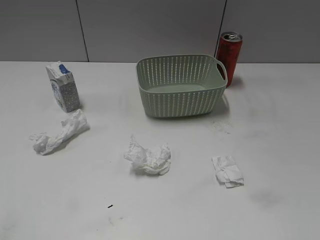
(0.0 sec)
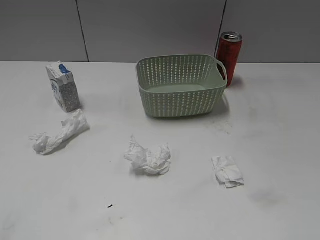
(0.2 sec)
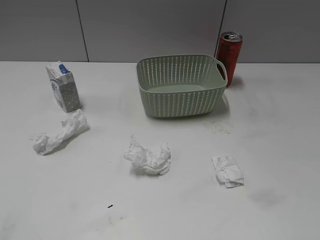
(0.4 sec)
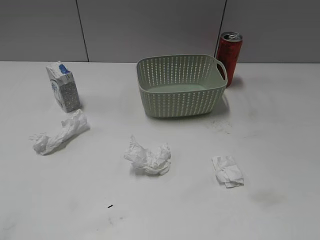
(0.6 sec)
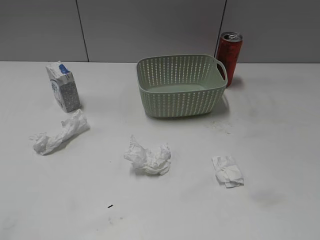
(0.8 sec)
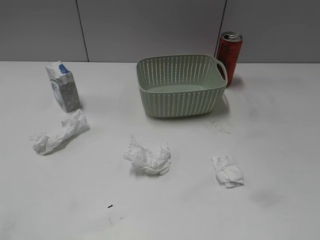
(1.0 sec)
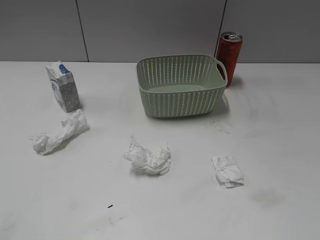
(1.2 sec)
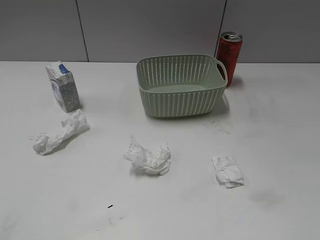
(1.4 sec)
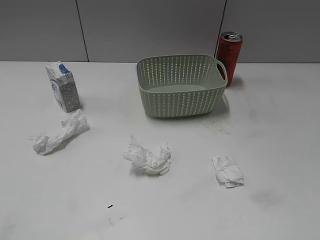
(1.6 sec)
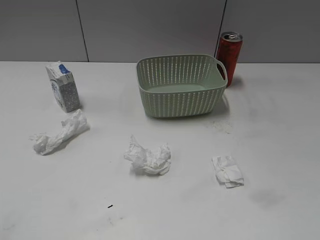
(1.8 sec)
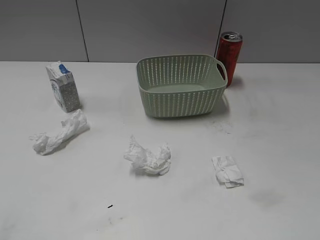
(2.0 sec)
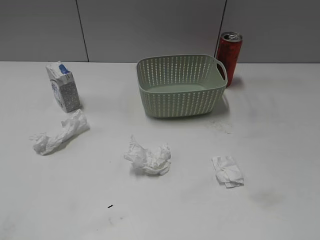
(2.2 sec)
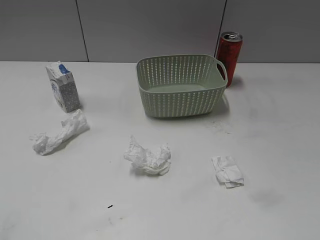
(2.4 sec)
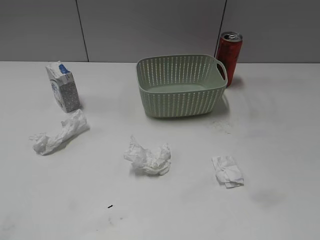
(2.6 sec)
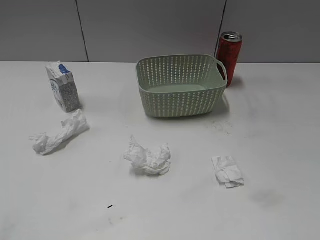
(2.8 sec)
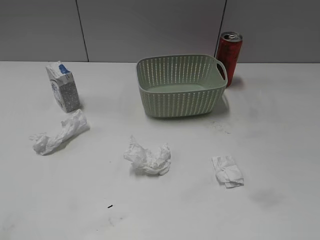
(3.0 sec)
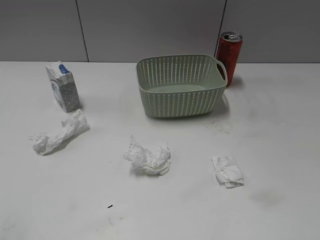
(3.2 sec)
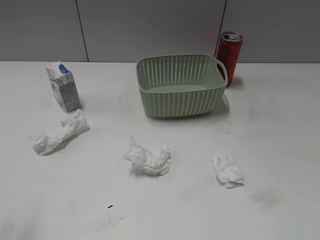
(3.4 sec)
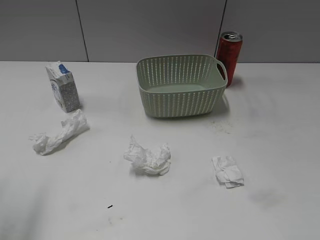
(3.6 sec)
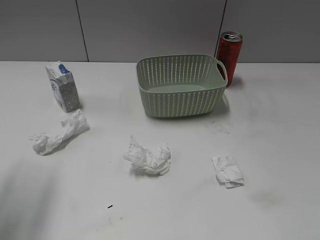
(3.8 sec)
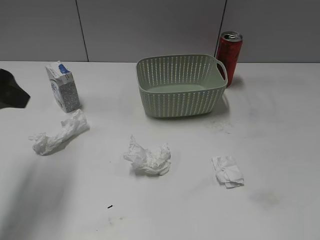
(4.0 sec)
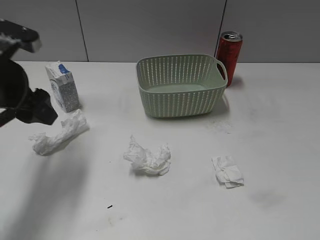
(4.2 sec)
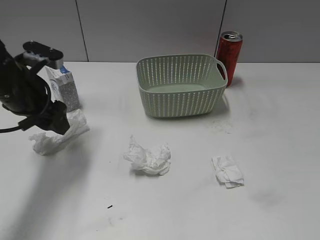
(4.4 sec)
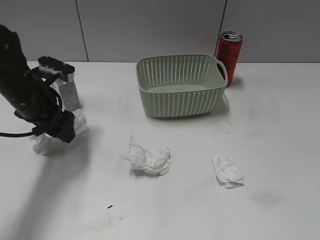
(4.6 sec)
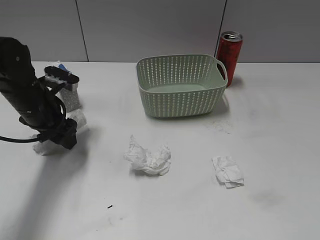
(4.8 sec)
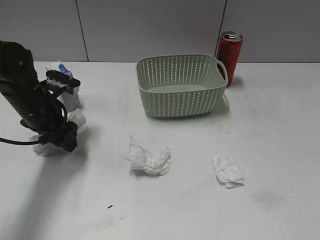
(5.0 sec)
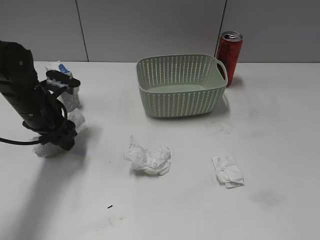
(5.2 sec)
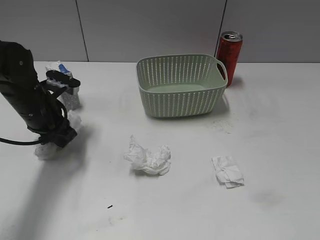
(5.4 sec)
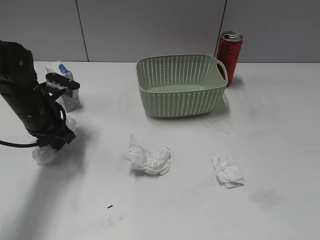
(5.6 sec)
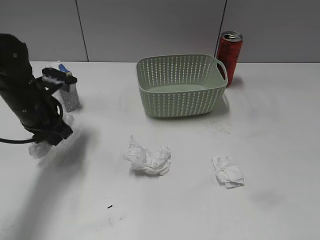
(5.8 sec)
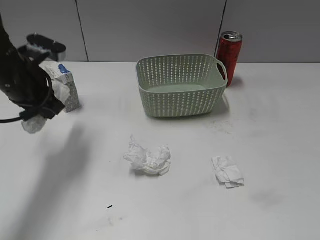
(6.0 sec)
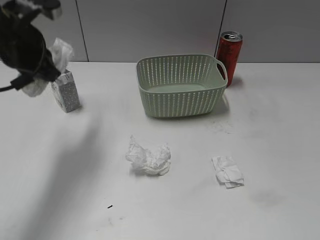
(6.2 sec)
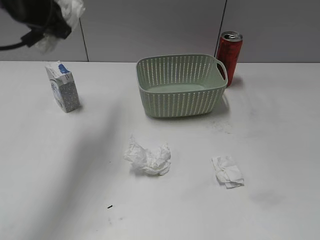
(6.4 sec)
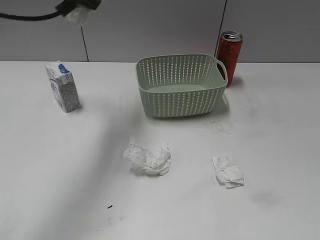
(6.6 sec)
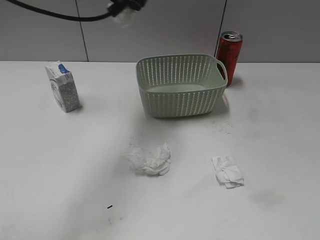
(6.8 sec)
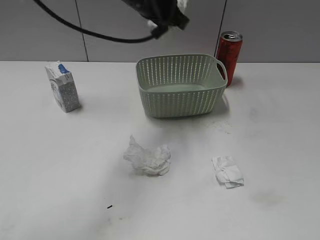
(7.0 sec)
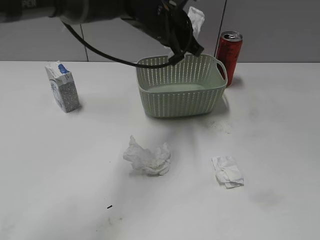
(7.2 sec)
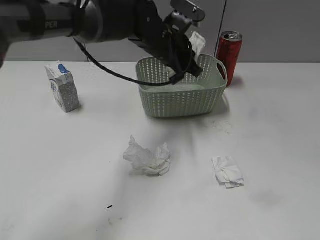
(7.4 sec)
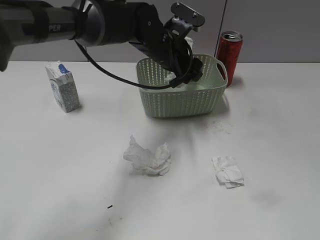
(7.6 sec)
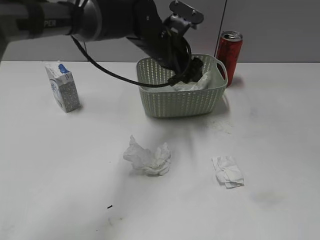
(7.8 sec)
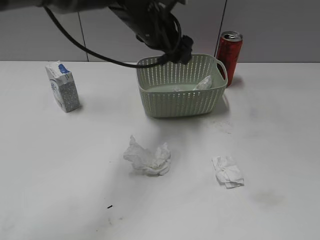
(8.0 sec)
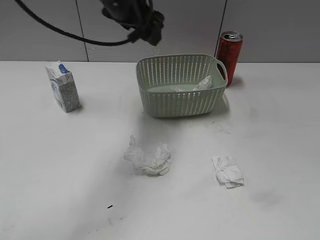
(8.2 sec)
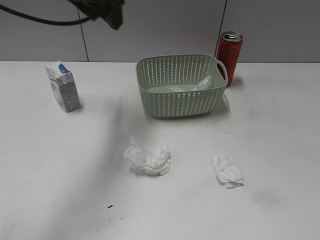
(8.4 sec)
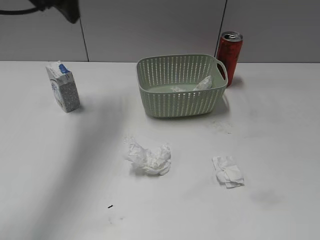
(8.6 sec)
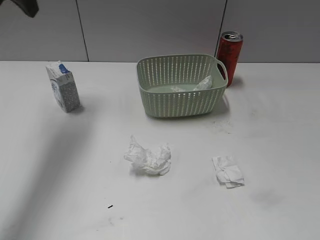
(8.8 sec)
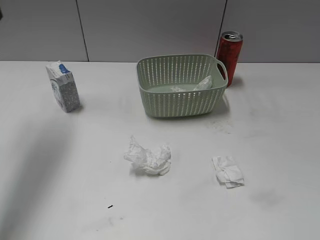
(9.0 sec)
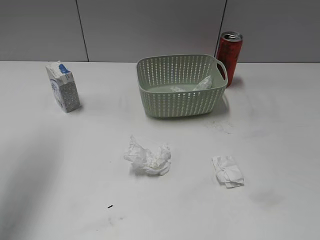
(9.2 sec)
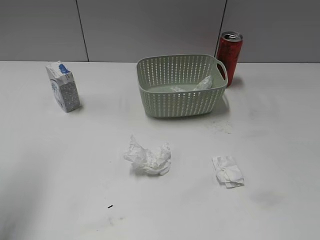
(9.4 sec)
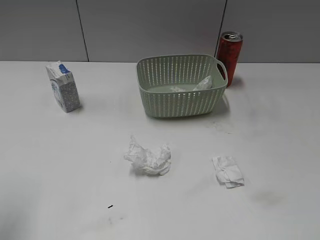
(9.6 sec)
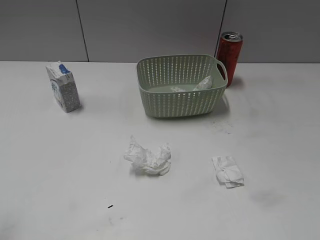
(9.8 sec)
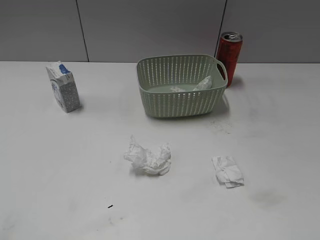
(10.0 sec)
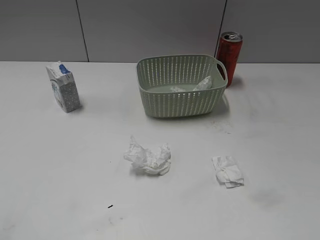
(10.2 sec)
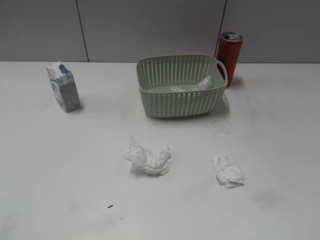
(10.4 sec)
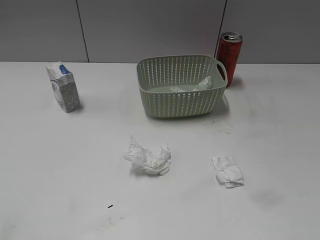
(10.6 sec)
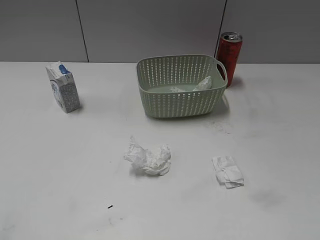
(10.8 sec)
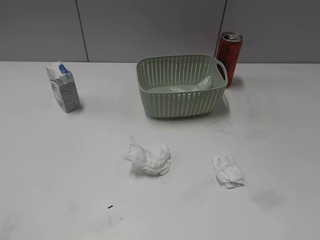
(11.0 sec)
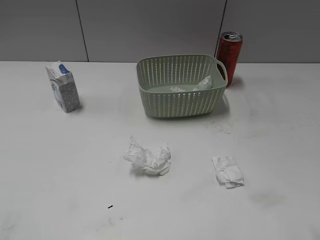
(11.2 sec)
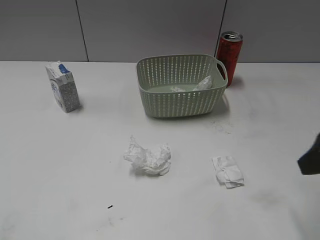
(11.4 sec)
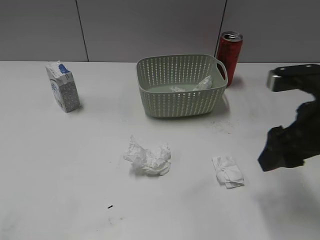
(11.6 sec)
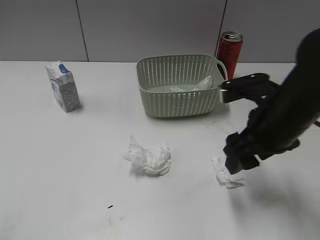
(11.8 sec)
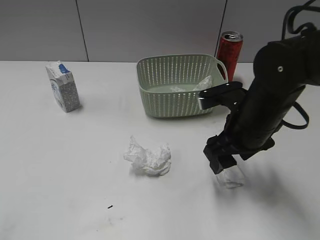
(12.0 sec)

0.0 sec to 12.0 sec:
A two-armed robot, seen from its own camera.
Step, 3.8 sec to 5.6 sec: Grasp the waste paper with left gripper.
Step, 5.8 sec to 8.0 sec: Place the waste paper in the basket with left gripper.
3.0 sec to 4.4 sec: The left gripper is displaced forward by about 30 cm.
4.4 sec to 6.0 sec: The left gripper moves some 5 cm downward and comes back, and closes up.
6.0 sec to 7.6 sec: The left gripper travels to the right by roughly 25 cm, and opens up.
7.6 sec to 9.0 sec: The left gripper is displaced to the left and upward by some 35 cm.
9.0 sec to 10.4 sec: The left gripper shifts some 35 cm backward.
10.4 sec to 12.0 sec: The right gripper heads forward, to the left and downward, covering some 35 cm.

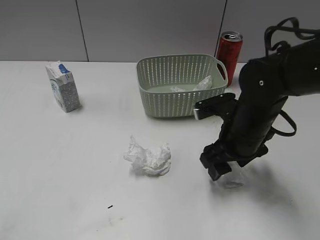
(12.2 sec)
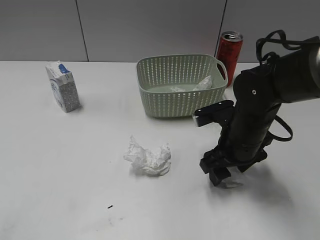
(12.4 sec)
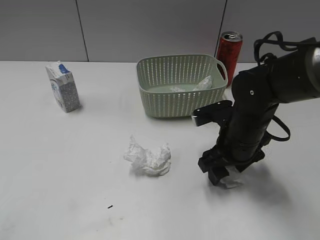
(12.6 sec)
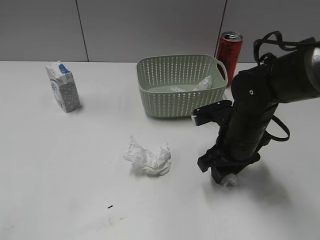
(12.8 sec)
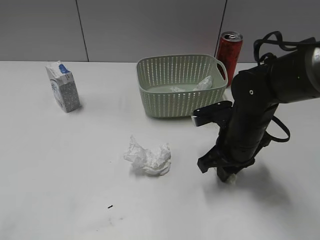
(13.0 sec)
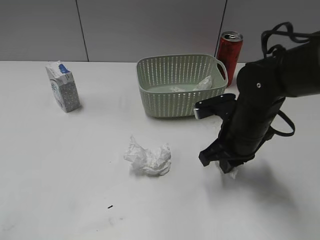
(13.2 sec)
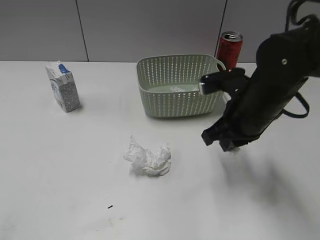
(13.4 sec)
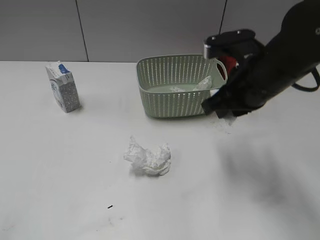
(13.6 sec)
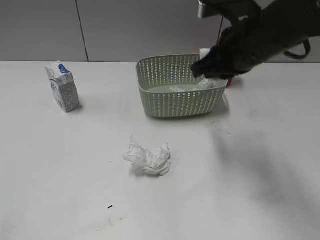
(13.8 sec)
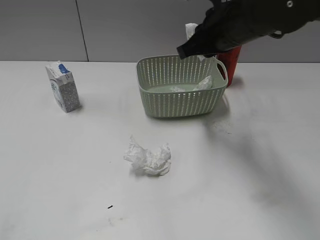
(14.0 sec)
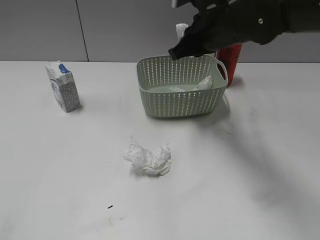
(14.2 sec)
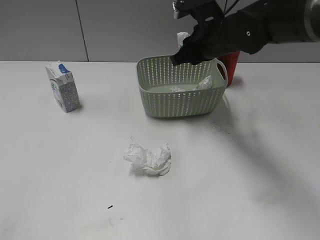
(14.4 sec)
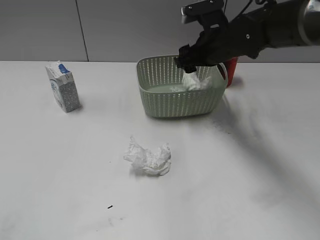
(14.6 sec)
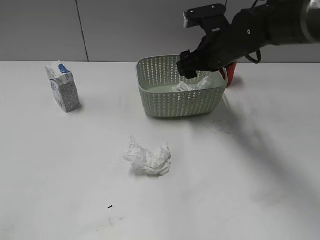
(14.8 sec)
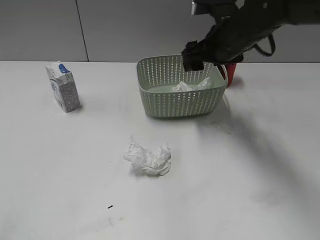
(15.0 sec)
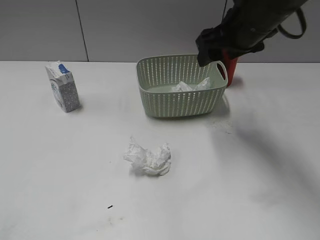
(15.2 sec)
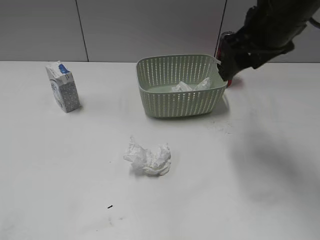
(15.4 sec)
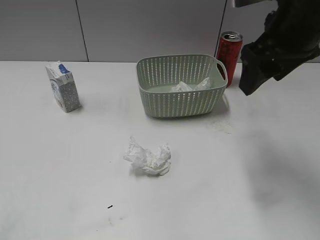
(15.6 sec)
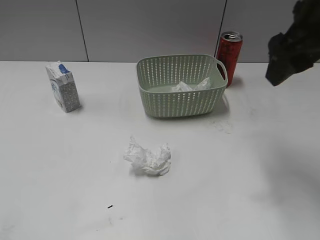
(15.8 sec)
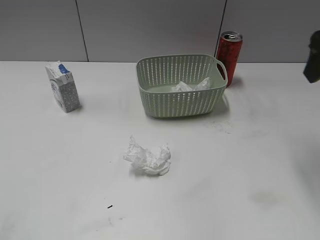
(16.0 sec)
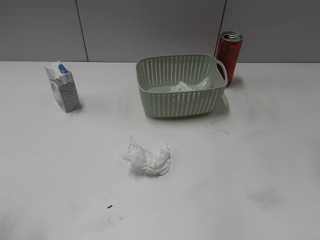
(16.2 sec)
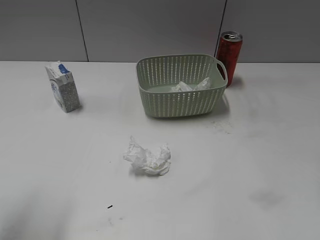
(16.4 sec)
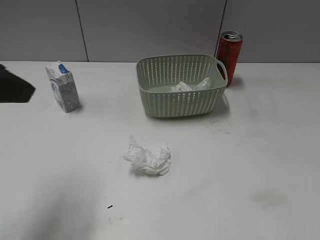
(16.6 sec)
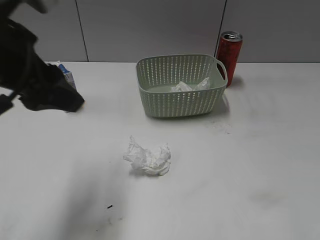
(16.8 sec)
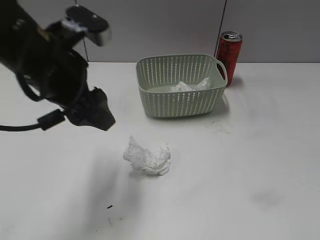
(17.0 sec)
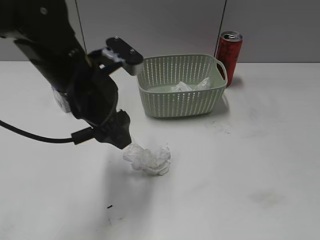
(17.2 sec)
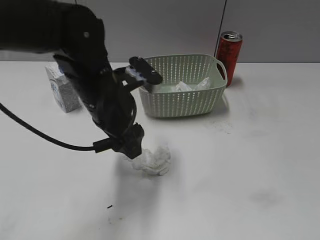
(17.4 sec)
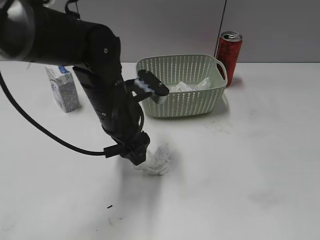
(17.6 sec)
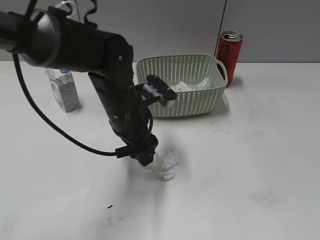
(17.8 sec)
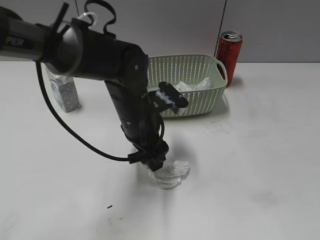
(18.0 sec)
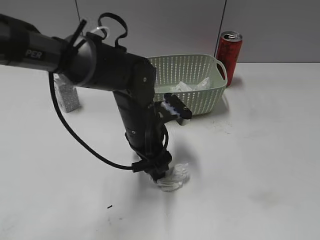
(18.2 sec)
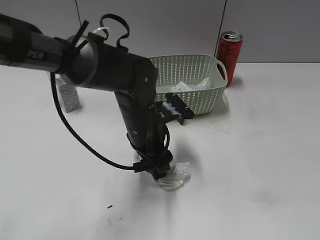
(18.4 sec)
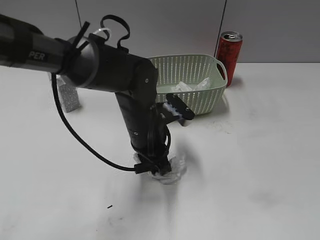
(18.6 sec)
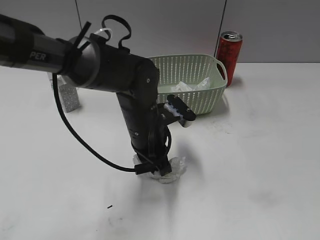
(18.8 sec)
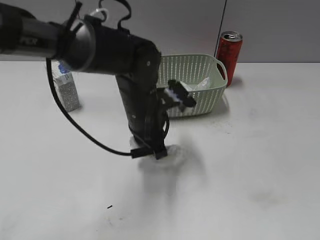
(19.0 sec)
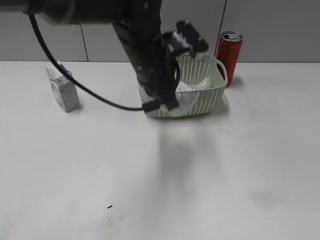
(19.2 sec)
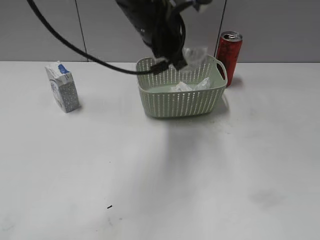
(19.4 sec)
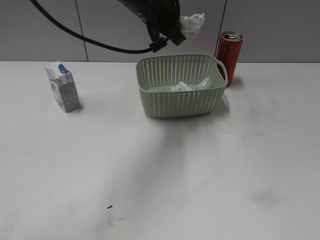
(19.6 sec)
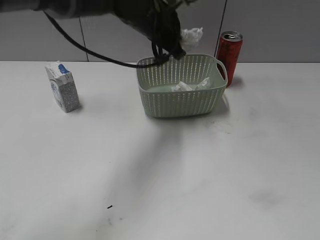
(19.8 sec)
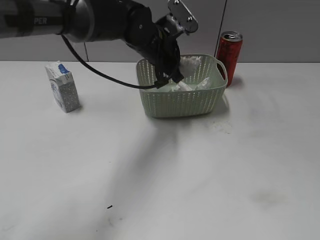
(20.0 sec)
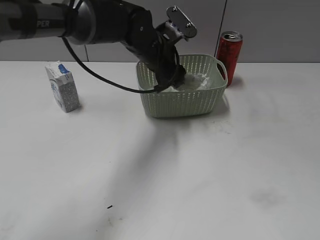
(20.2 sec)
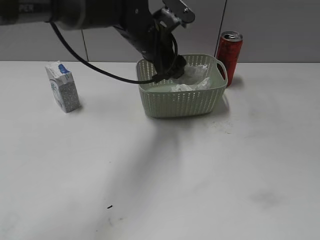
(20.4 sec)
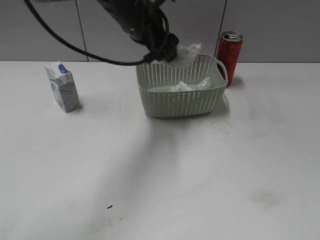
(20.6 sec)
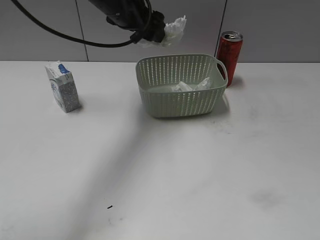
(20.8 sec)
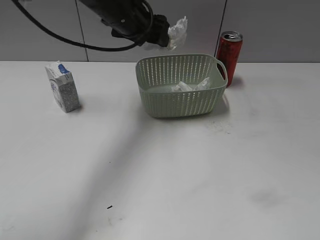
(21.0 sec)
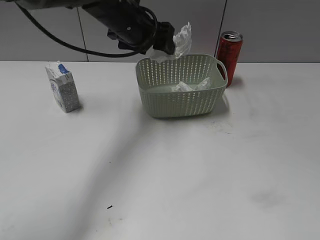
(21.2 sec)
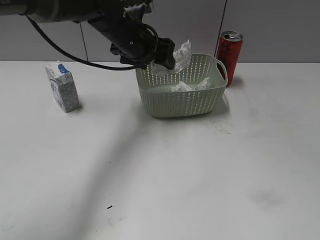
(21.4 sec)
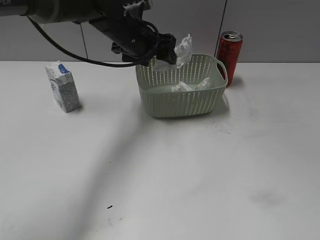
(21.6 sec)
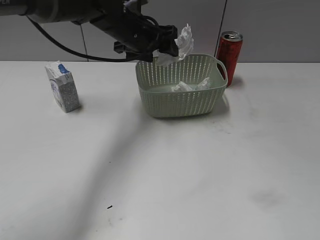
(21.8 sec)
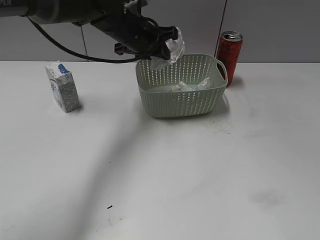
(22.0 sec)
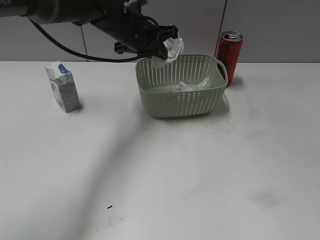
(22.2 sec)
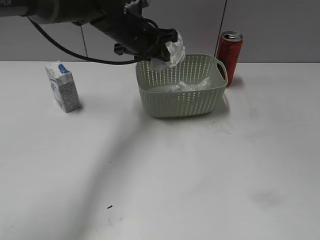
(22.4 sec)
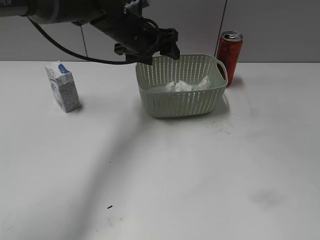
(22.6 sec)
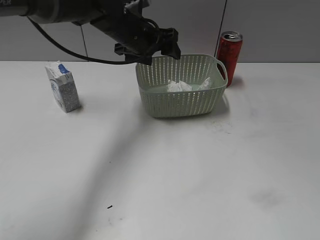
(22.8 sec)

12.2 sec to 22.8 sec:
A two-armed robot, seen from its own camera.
Step, 13.4 sec to 14.8 sec: Place the waste paper in the basket with right gripper.
Step, 15.0 sec to 19.0 sec: Grasp the waste paper with left gripper.
Step, 19.2 sec to 22.6 sec: Place the waste paper in the basket with left gripper.
12.2 sec to 13.8 sec: The right gripper moves upward, approximately 15 cm, and closes up.
13.8 sec to 15.2 sec: The right gripper opens up.
15.2 sec to 16.8 sec: The left gripper moves forward and to the right, some 25 cm; the right gripper travels backward and to the right by approximately 25 cm.
16.8 sec to 18.2 sec: The left gripper goes about 25 cm downward and to the right. Meanwhile the right gripper is displaced backward by roughly 15 cm.
18.2 sec to 19.8 sec: The left gripper heads forward and upward, covering approximately 15 cm, and closes its fingers.
19.8 sec to 21.2 sec: The left gripper reaches approximately 5 cm downward, then returns, and opens.
21.2 sec to 22.8 sec: The left gripper closes and opens again.
